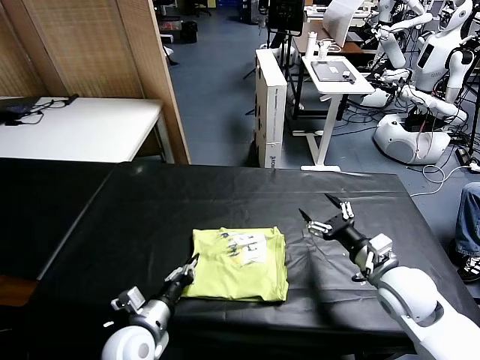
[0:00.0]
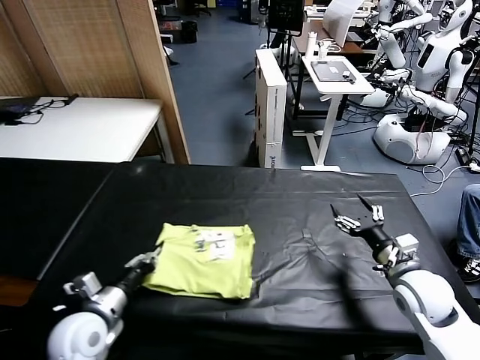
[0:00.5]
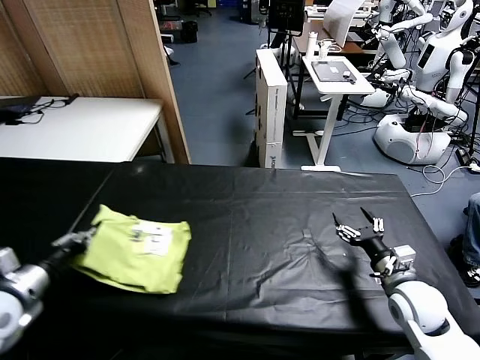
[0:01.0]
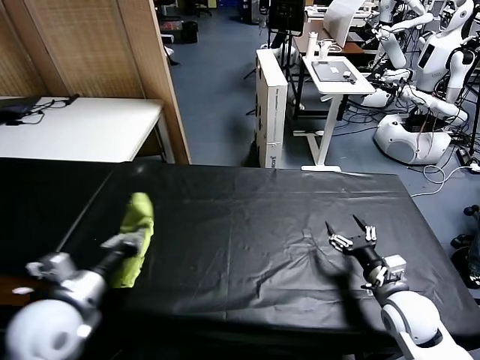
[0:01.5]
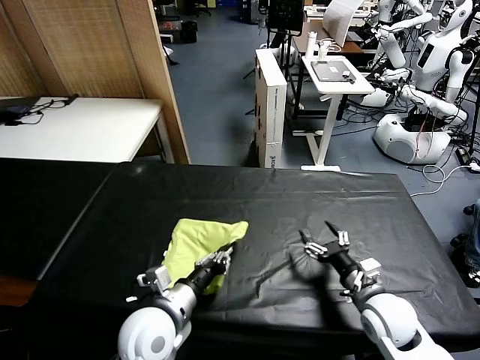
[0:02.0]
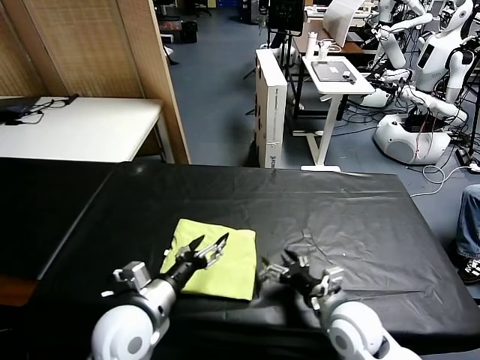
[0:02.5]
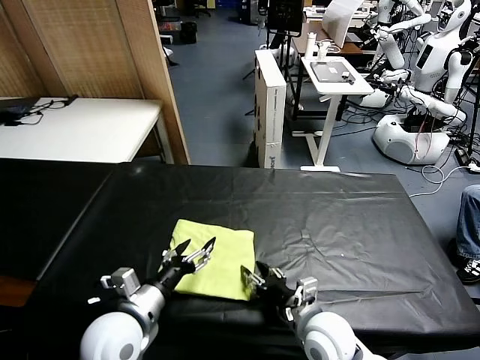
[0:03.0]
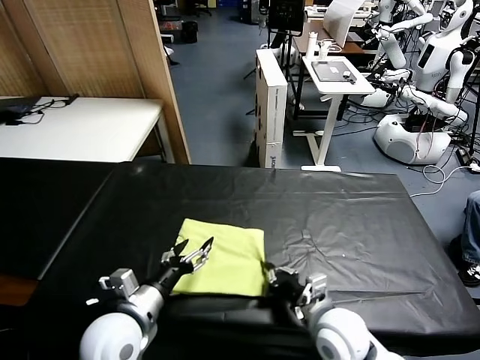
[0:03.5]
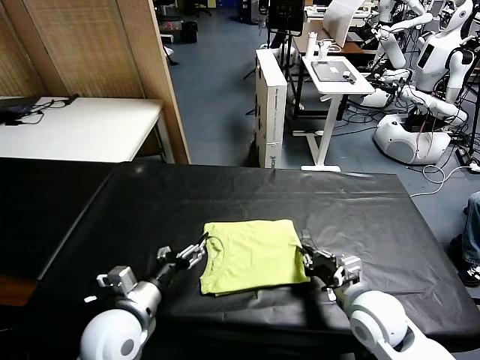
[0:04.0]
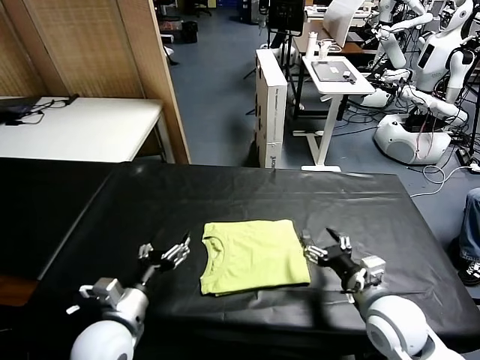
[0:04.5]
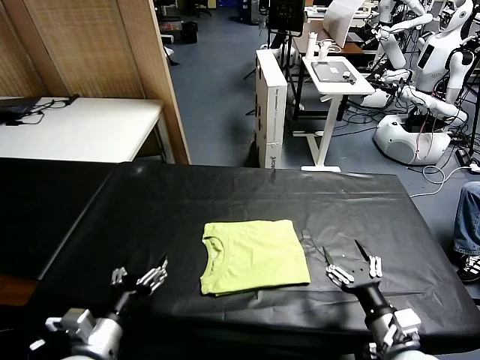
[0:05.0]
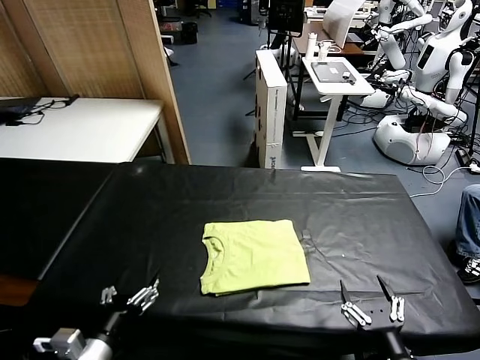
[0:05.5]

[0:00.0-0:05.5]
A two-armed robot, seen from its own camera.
Task of the whole recording: fold and organize the clothes.
Step, 0:00.0 to 0:02.0: Flip the folded clothes over with left gripper.
Step, 0:02.5 to 0:04.0: Drag the clothes to the center of the table.
0:00.0 to 0:02.0: The left gripper is displaced upward by roughly 10 cm, and travels to the left and back again, about 20 cm each way, while the right gripper moves downward, roughly 5 cm.
0:02.0 to 0:03.5: The left gripper travels to the left by approximately 5 cm, and opens up. Meanwhile the right gripper shifts roughly 10 cm to the left, and closes.
0:03.5 to 0:05.5: The left gripper travels backward and to the left by roughly 10 cm; the right gripper shifts about 20 cm backward and to the right, and opens.

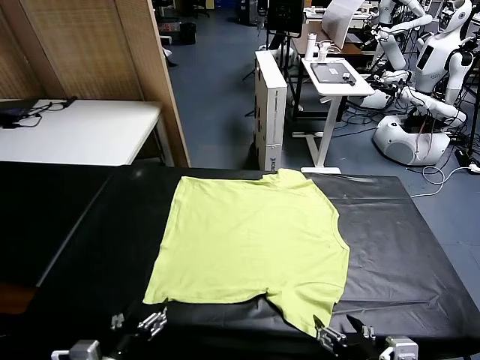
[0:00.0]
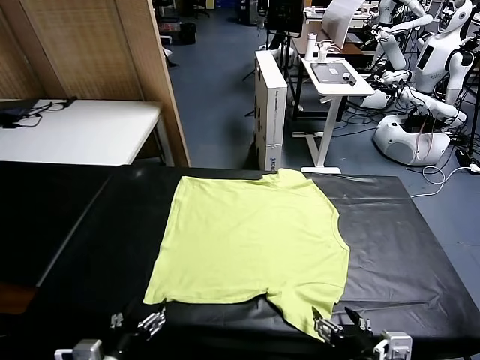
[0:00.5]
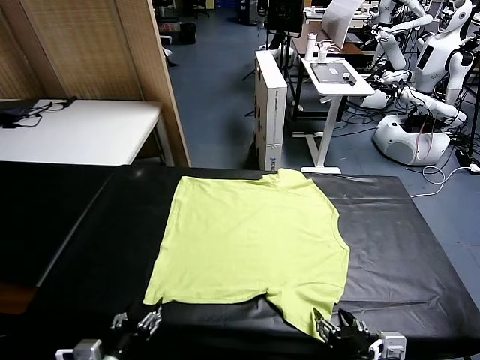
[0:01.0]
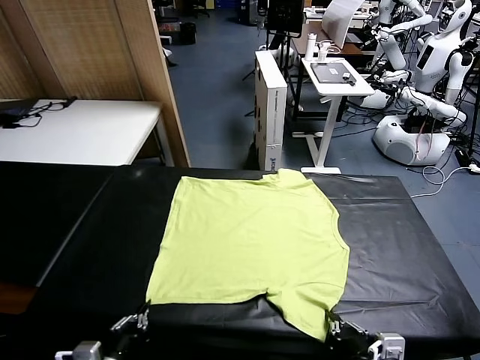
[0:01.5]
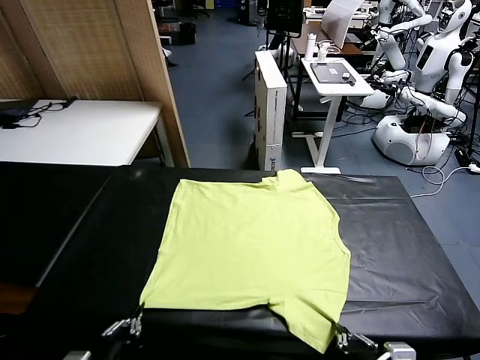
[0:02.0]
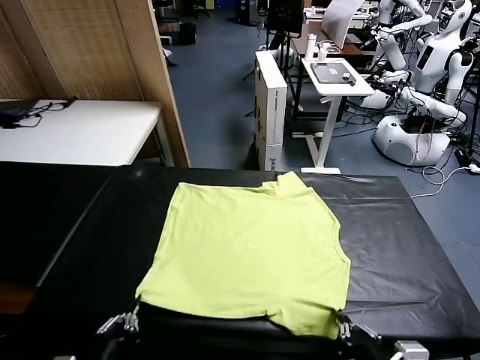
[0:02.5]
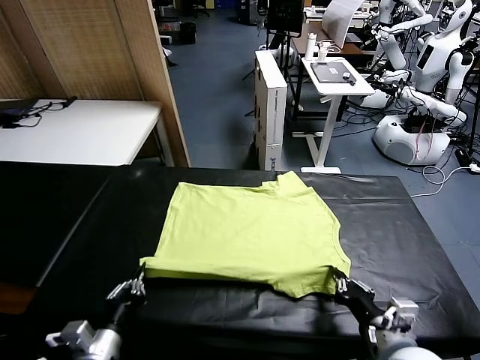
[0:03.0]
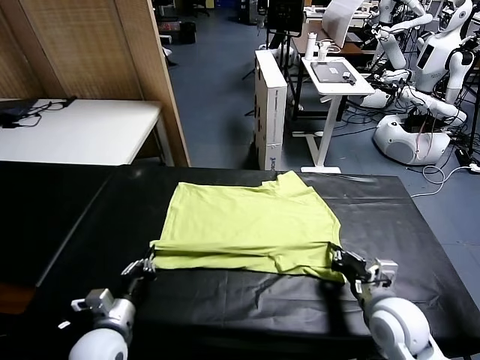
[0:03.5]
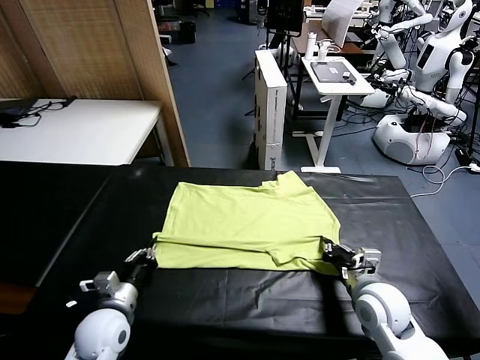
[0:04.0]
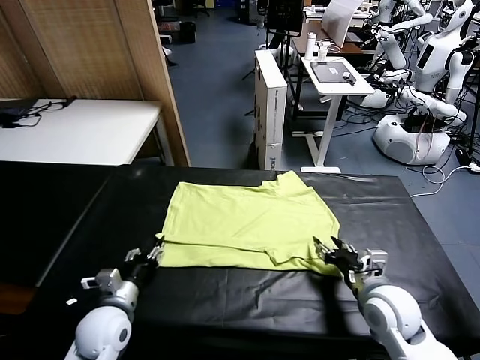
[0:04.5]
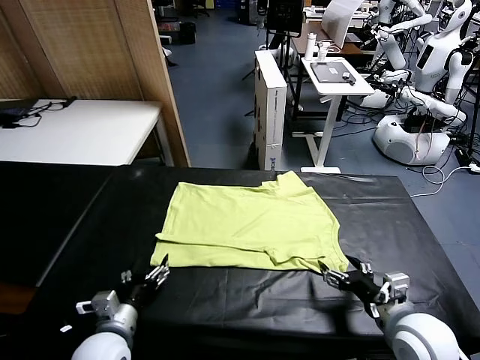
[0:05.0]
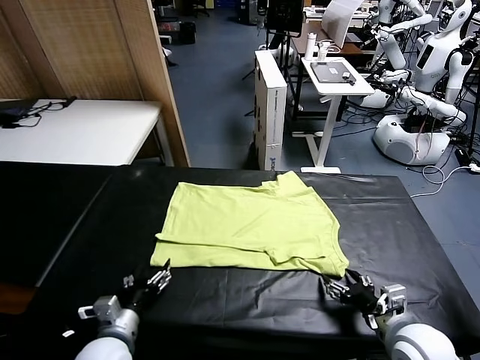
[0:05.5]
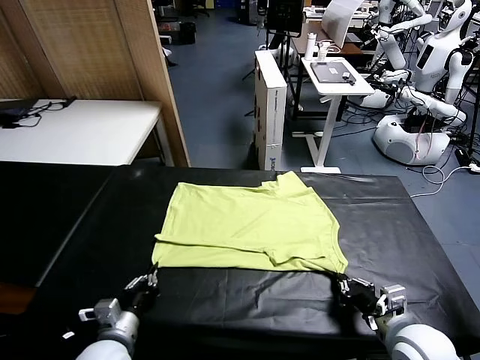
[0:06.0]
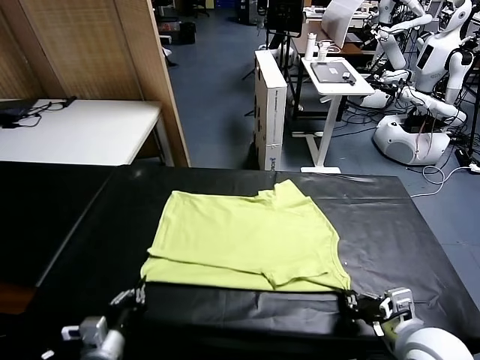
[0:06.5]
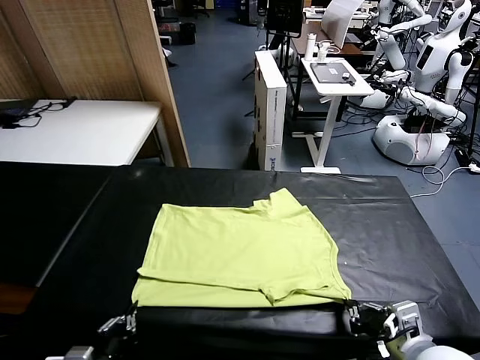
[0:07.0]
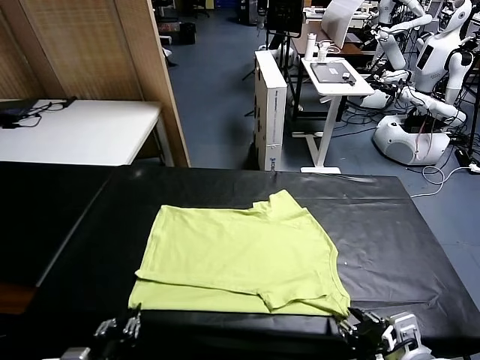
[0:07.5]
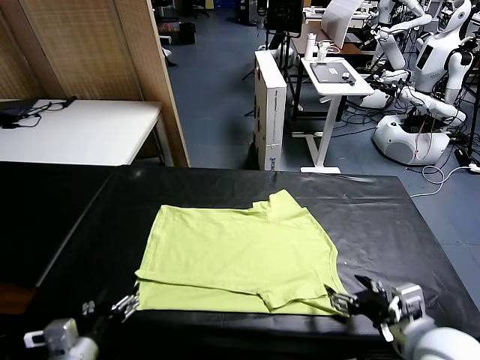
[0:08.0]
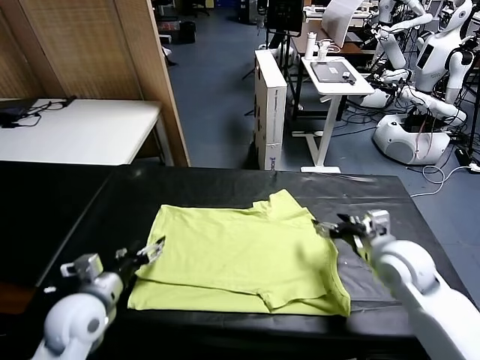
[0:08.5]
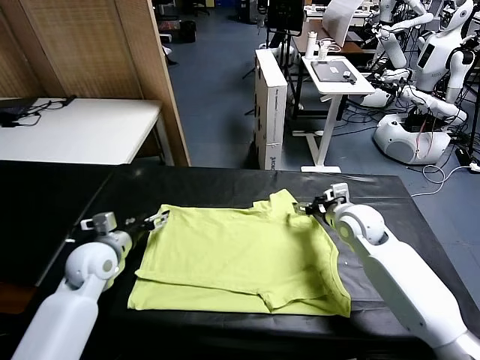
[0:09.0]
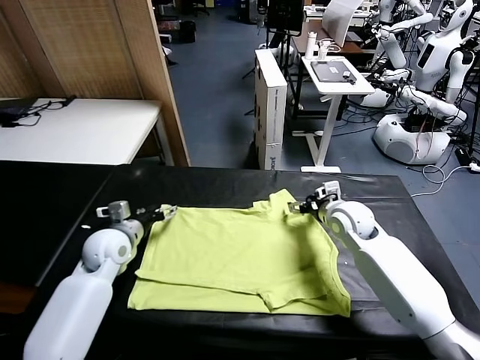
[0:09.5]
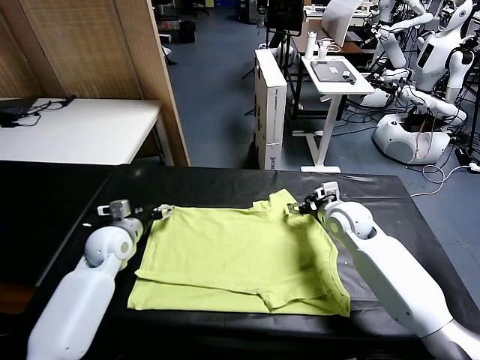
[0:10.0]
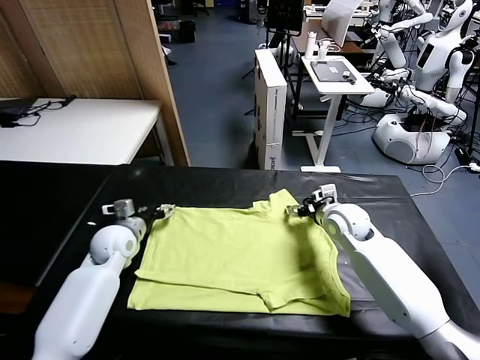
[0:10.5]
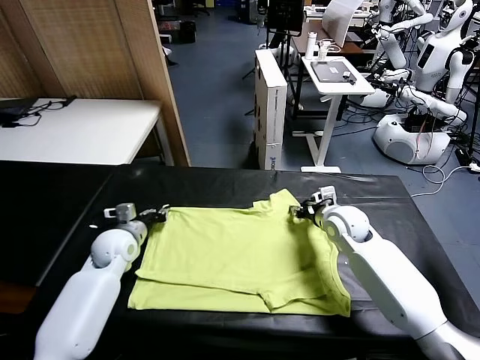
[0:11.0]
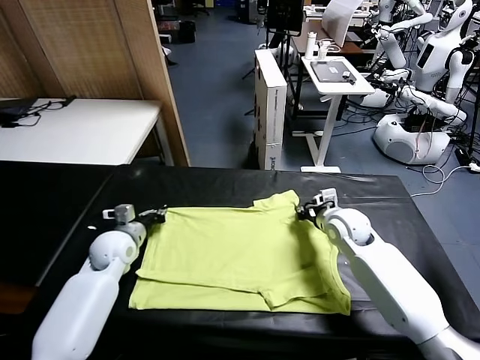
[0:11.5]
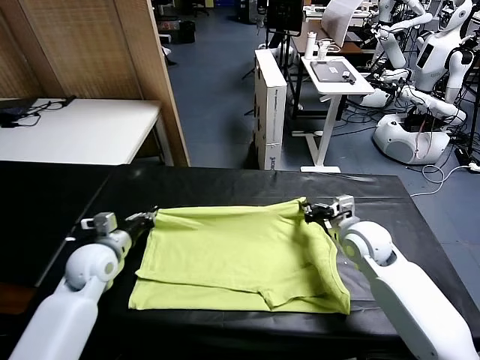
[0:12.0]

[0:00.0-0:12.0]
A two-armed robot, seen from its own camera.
Task of the whole recording: fold and organize the clothes.
Step, 0:00.0 to 0:01.5: use both grippers simultaneously to clamp the lower edge of the clothing fabric.
Step, 0:02.0 to 0:04.5: use both grippers to drag the lower edge of the fabric forward and fold it over the upper edge.
Step, 0:05.0 to 0:07.5: Drag the clothes downward with both gripper.
Step, 0:08.0 to 0:11.0: use both grippers simultaneously to clamp the upper edge of the clothing fabric.
0:02.0 to 0:04.0: Both grippers move forward, about 20 cm. The right gripper opens its fingers.
0:04.0 to 0:06.0: The grippers both shift backward by some 10 cm. The left gripper opens, then closes once more; the right gripper closes.
0:06.0 to 0:08.0: The grippers both shift upward by about 5 cm. The right gripper opens up. Meanwhile the left gripper reaches about 10 cm backward, then returns, and opens up.
0:08.0 to 0:10.0: Both grippers travel together forward, roughly 25 cm.
0:10.0 to 0:12.0: The grippers both shift backward by approximately 10 cm. The left gripper closes. The right gripper closes.

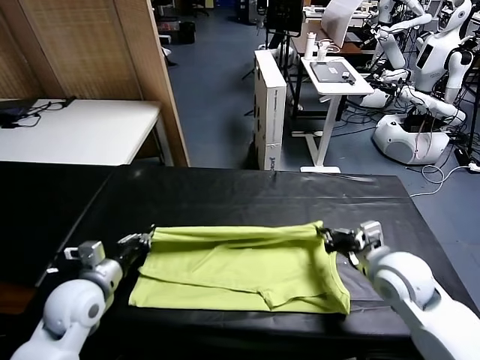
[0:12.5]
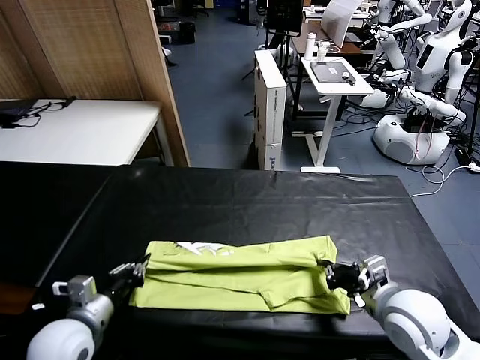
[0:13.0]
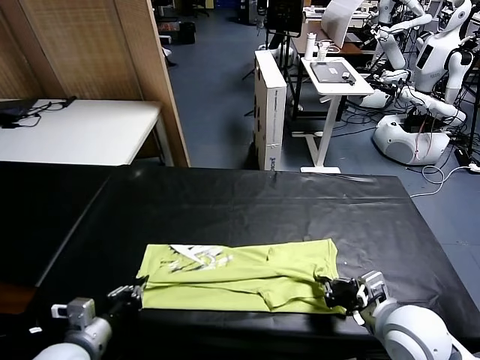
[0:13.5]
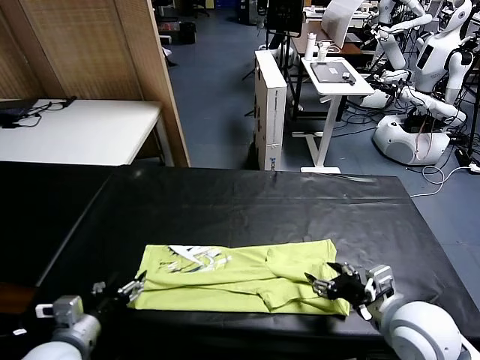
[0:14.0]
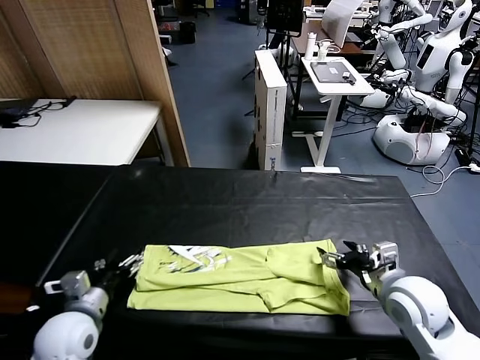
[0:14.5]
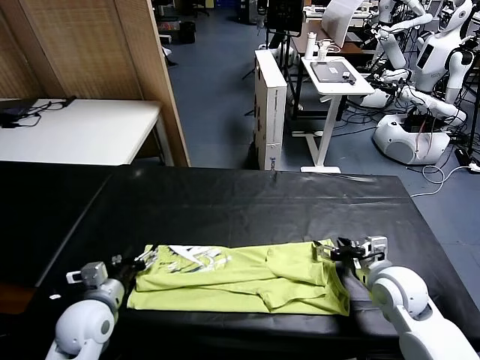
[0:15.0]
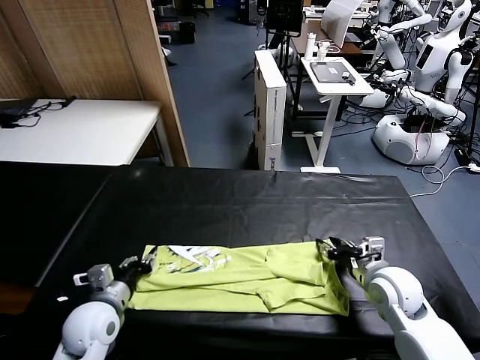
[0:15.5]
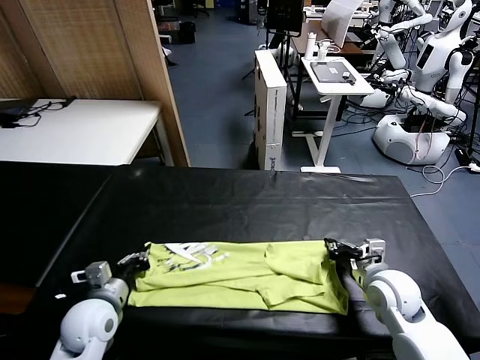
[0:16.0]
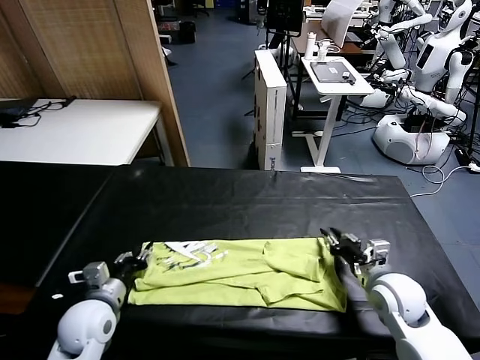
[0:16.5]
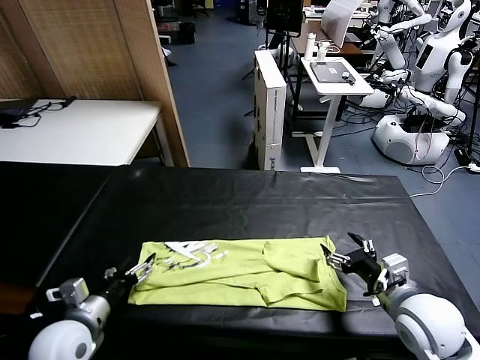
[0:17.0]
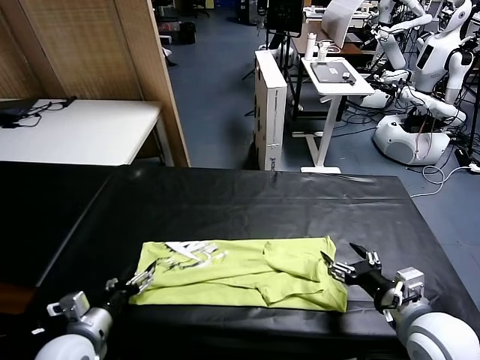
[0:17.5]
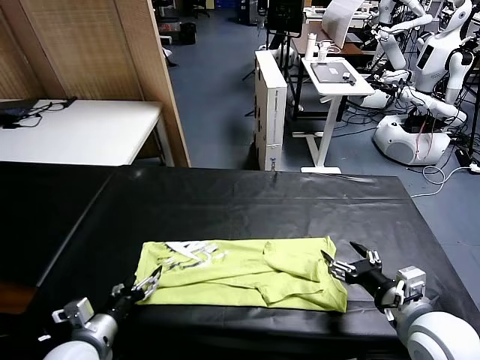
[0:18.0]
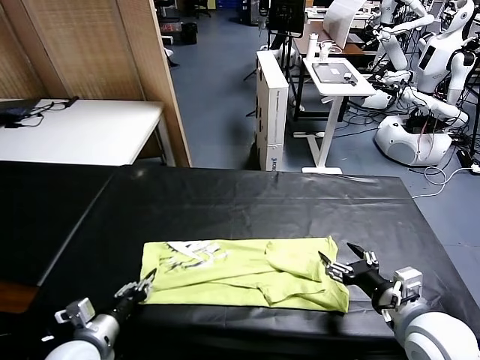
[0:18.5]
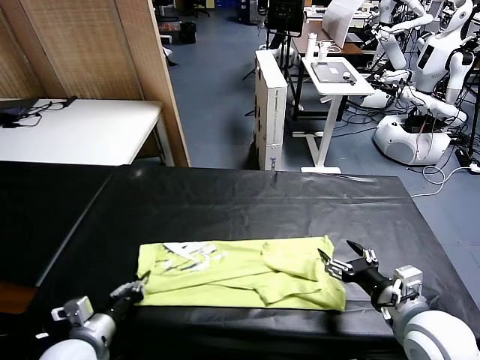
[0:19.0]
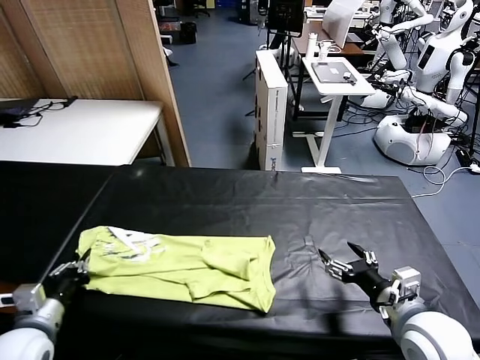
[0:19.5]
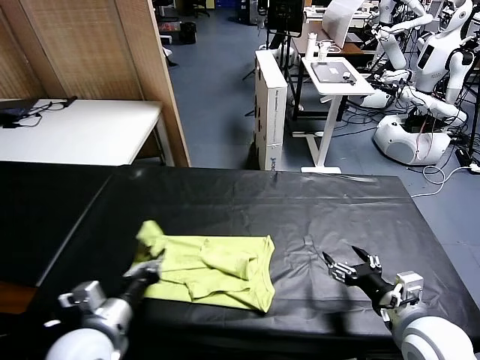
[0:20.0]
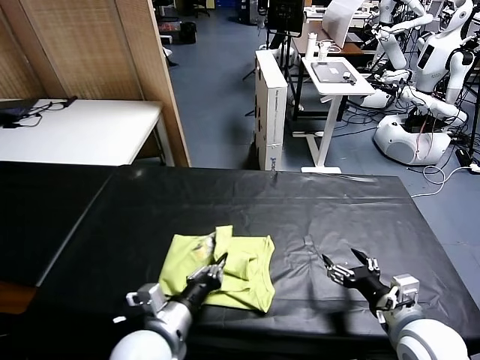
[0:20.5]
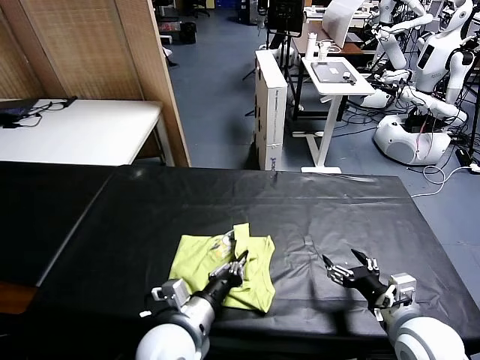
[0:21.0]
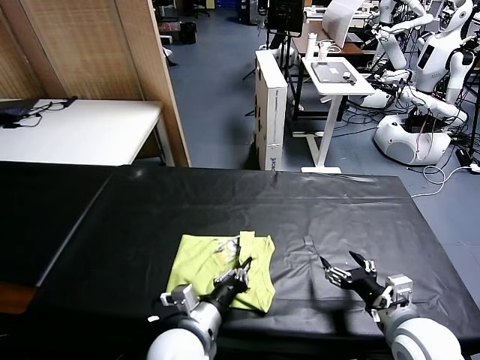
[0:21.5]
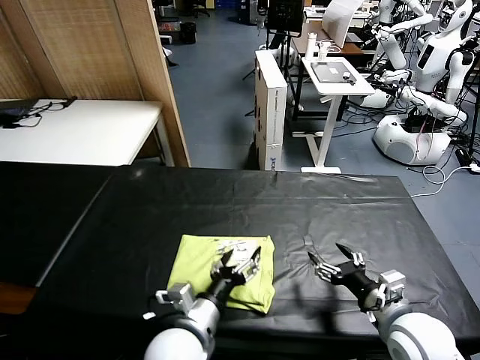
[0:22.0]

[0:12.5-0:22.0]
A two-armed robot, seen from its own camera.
Task of the whole recording: fold and organize the clothes.
Step, 0:12.5 to 0:14.0: use both grippers to drag the upper edge of the fabric backward and fold it over the lower edge.
Step, 0:14.5 to 0:18.5: use the left gripper to clamp the left edge of the fabric.
Step, 0:19.0 to 0:21.5: use the left gripper to drag the left edge of the fabric to the left and folds it over the right edge.
0:12.5 to 0:14.5: The left gripper goes backward and returns, some 10 cm each way, and opens its fingers. Meanwhile the right gripper opens up.
0:14.5 to 0:16.5: The right gripper closes and opens again. The left gripper closes up.
0:16.5 to 0:18.0: The right gripper shifts some 10 cm backward and upward, while the left gripper heads backward, covering about 5 cm, and opens its fingers.
0:18.0 to 0:20.0: The left gripper shifts approximately 10 cm upward and to the right, and closes up.
0:20.0 to 0:22.0: The left gripper travels to the right by approximately 15 cm, and opens.
